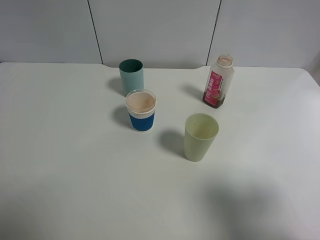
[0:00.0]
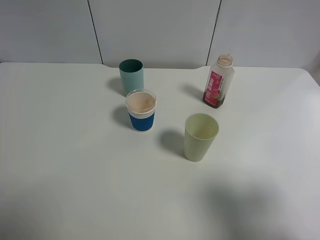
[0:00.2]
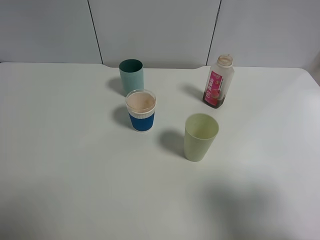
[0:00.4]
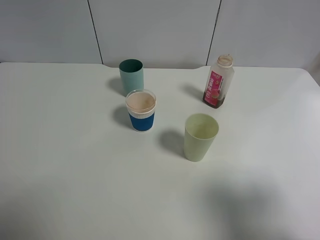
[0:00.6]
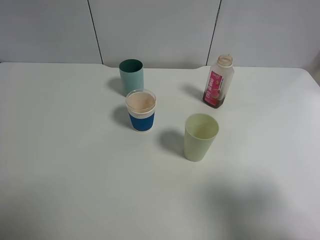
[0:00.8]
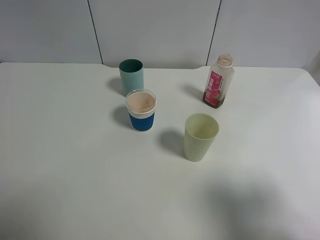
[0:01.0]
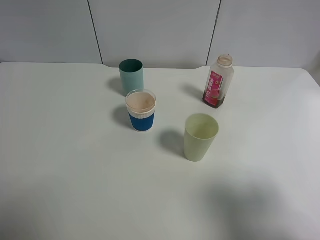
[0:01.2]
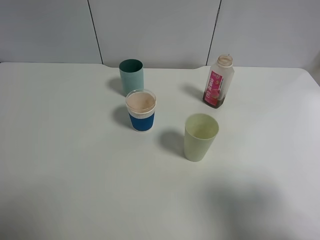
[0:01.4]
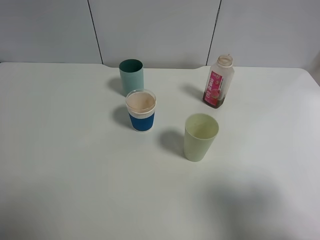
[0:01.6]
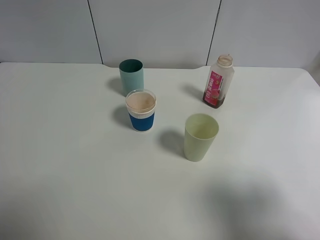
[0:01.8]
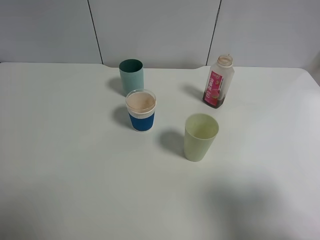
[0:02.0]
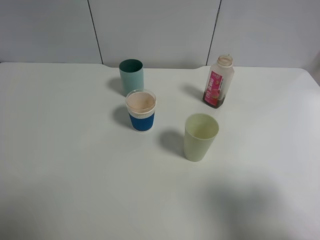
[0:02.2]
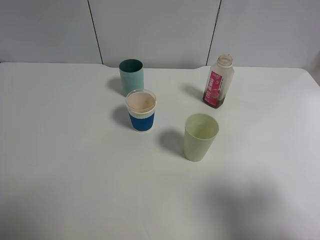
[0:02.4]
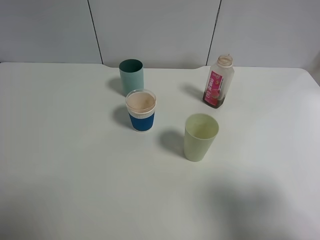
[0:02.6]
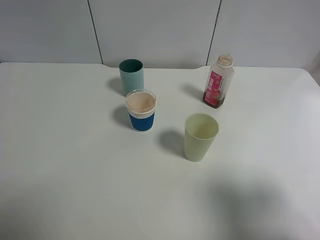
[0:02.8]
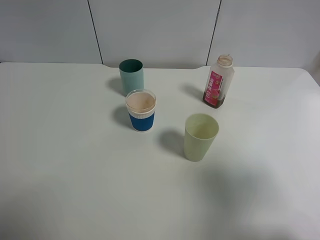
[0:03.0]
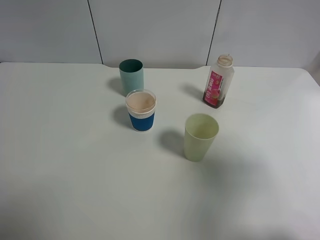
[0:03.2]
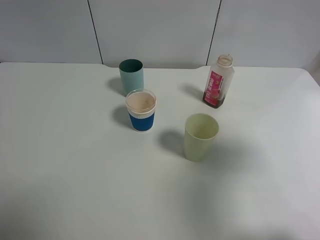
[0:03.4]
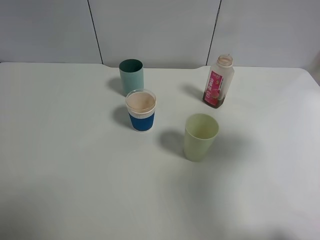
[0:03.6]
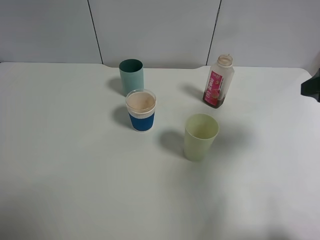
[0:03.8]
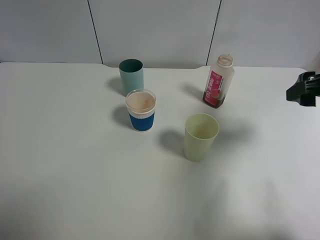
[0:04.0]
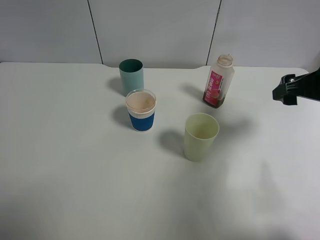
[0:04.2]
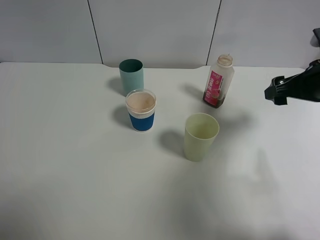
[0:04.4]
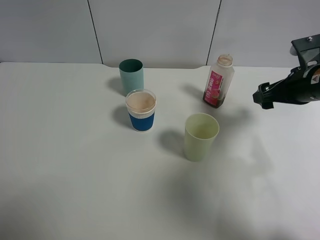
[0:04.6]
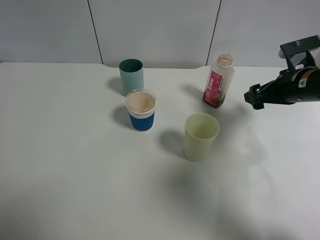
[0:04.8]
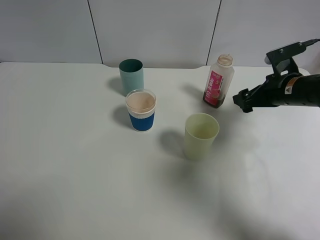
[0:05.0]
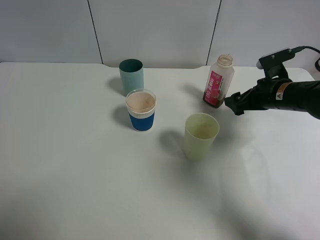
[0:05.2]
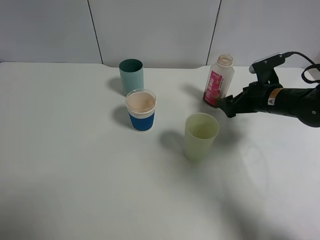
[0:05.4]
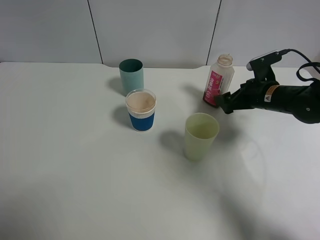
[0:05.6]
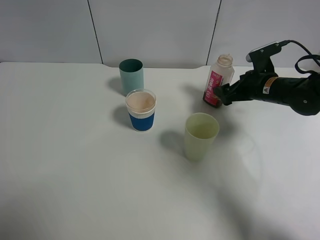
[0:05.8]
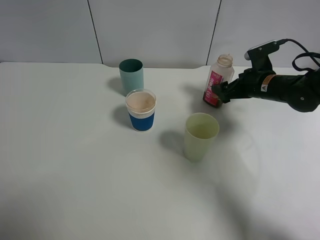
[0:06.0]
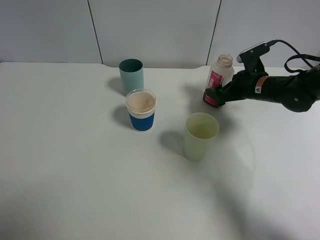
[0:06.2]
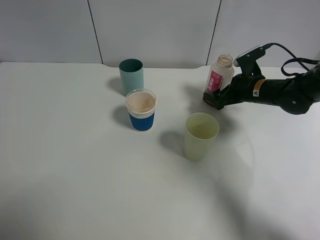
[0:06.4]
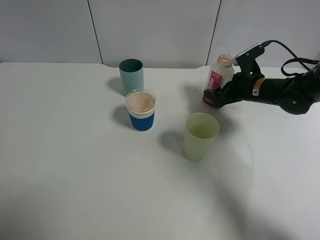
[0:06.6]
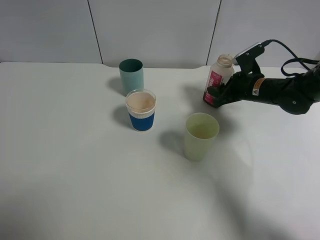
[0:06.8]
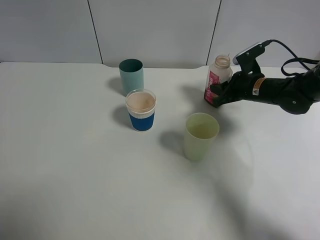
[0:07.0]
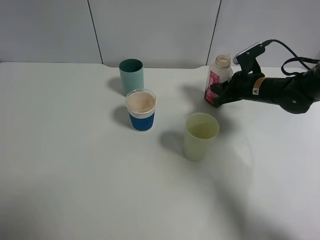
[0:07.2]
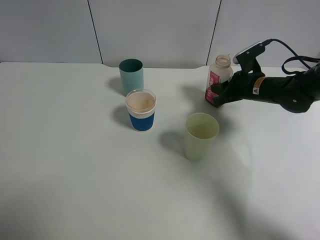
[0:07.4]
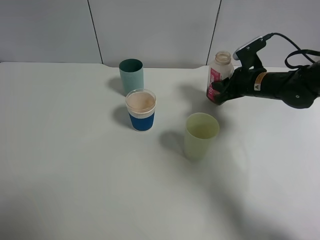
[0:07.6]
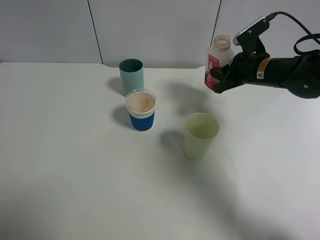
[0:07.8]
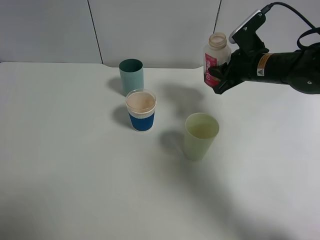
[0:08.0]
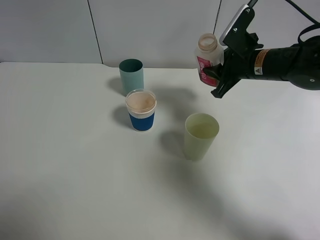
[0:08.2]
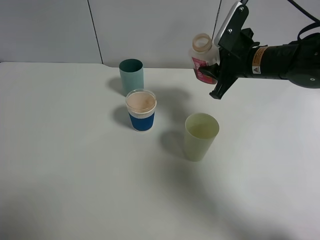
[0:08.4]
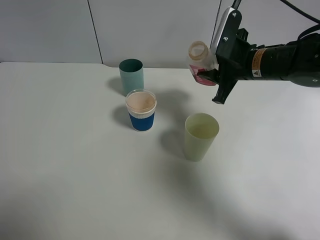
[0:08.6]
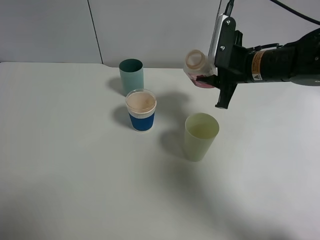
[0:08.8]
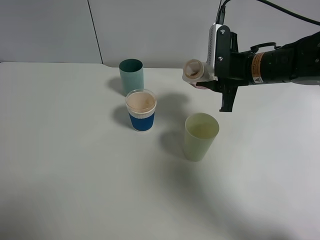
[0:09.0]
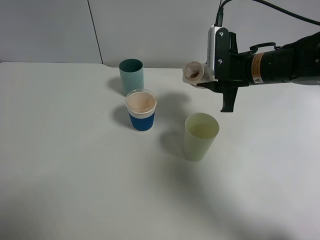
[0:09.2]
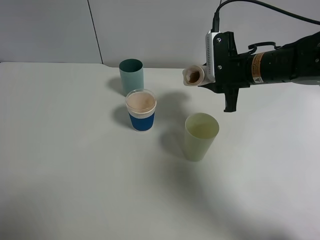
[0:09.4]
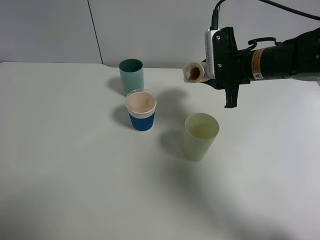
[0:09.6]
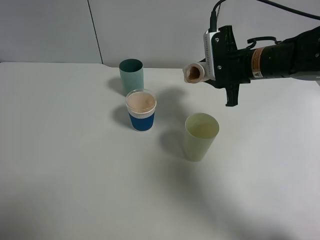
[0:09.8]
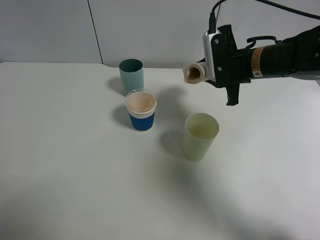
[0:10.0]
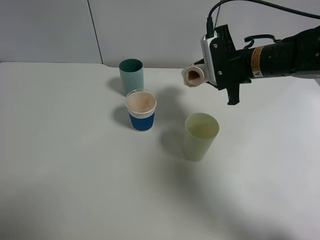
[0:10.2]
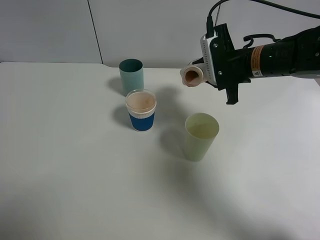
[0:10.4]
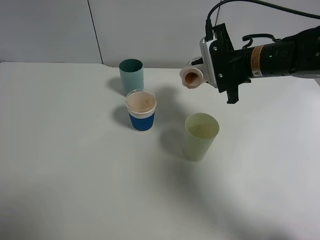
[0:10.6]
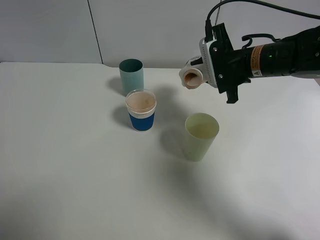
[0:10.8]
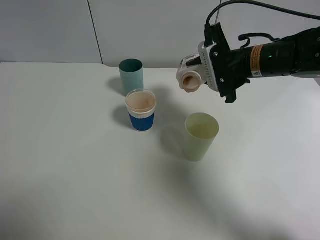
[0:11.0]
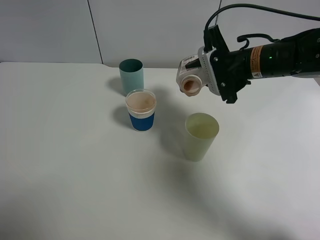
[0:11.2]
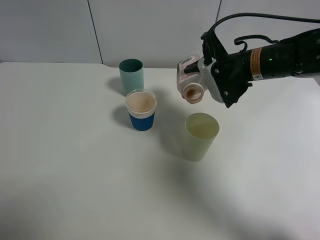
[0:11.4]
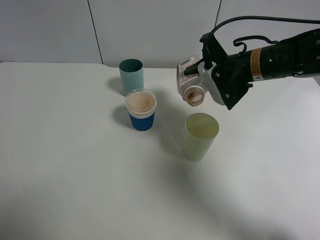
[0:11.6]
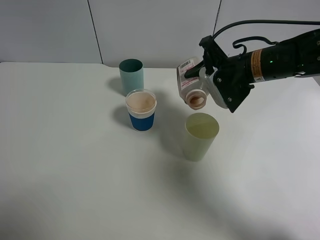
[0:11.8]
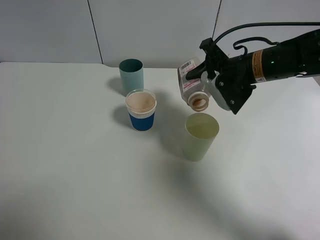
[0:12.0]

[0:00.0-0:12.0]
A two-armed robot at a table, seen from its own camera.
Task of the whole recording: use a gripper to hold the bottle of the drink and pour it into a random cup.
Step, 0:00.0 to 0:07.4: Grasp the cranberry juice bottle with the right gripper.
0:00.0 to 0:01.6: Neither gripper changes place.
0:01.6 to 0:03.0: The grippers move only a little.
0:03.0 to 0:04.4: The right gripper shifts about 25 cm forward and downward.
0:04.4 to 0:06.0: The right gripper is displaced forward and downward by about 15 cm.
0:06.0 to 0:07.6: The right gripper closes.
0:07.6 to 0:09.0: The right gripper goes some 10 cm upward and to the left.

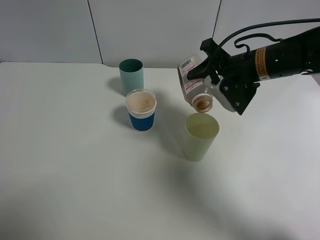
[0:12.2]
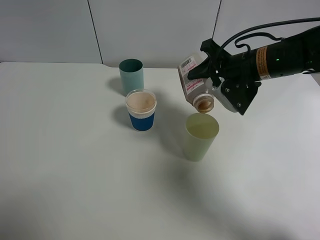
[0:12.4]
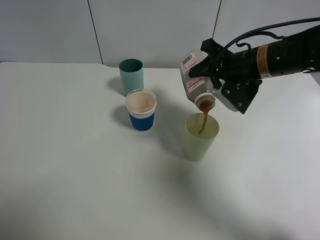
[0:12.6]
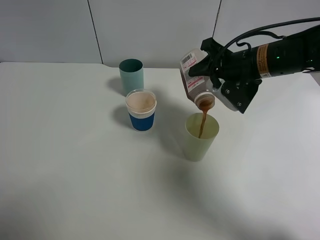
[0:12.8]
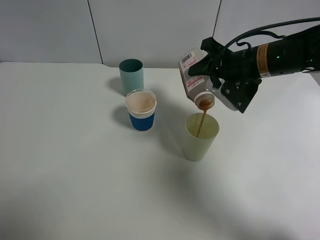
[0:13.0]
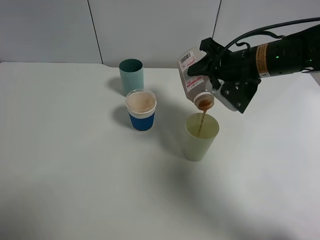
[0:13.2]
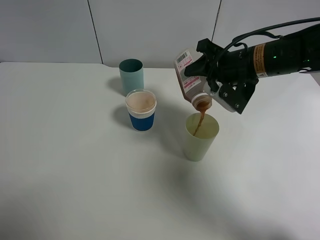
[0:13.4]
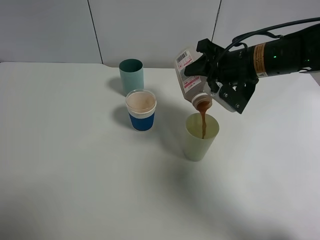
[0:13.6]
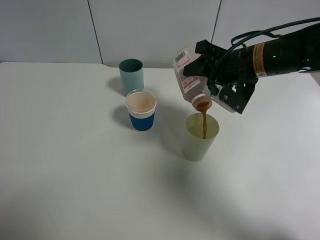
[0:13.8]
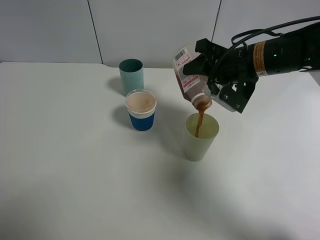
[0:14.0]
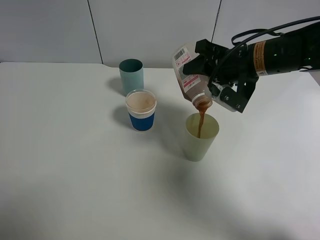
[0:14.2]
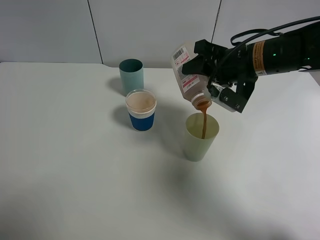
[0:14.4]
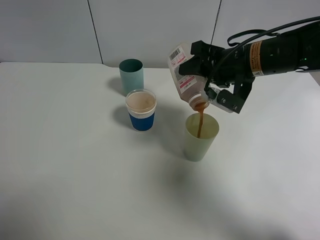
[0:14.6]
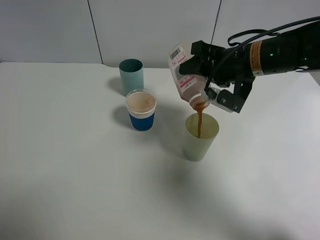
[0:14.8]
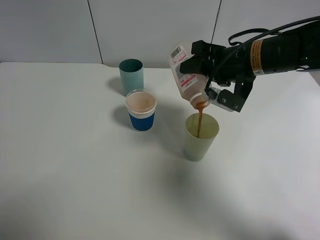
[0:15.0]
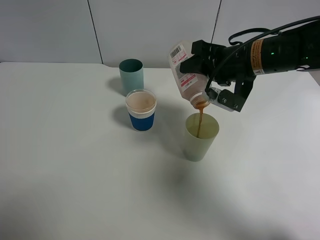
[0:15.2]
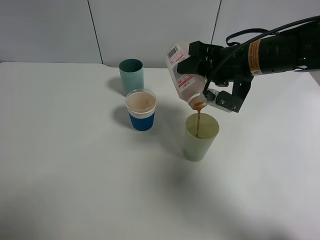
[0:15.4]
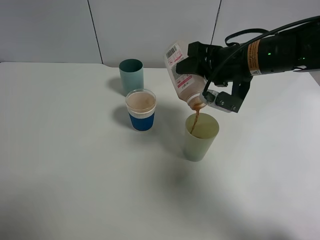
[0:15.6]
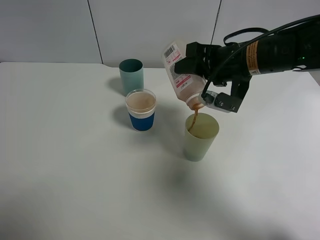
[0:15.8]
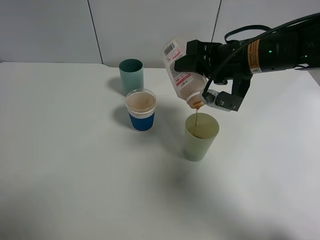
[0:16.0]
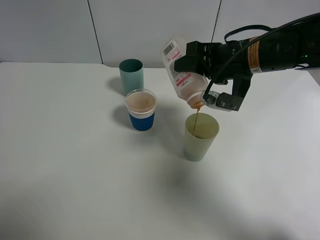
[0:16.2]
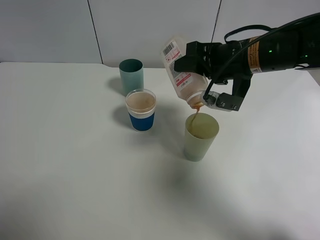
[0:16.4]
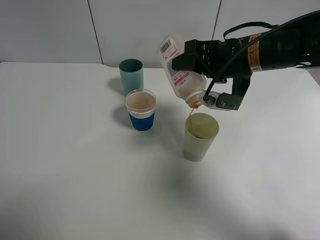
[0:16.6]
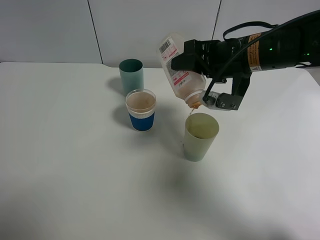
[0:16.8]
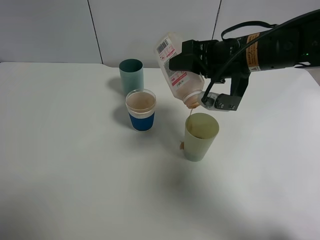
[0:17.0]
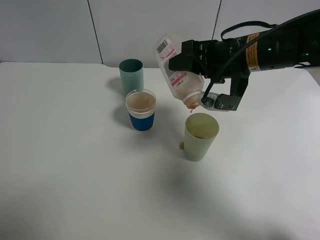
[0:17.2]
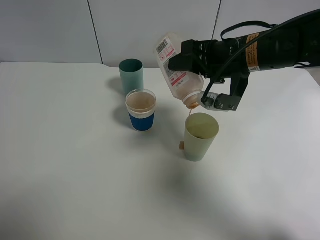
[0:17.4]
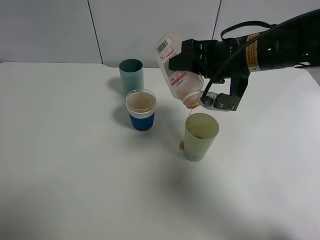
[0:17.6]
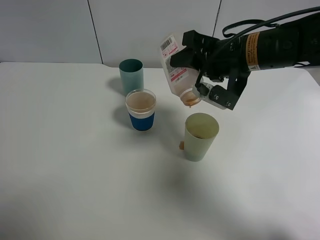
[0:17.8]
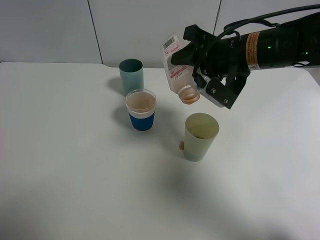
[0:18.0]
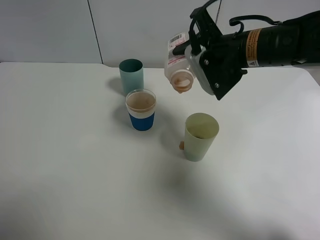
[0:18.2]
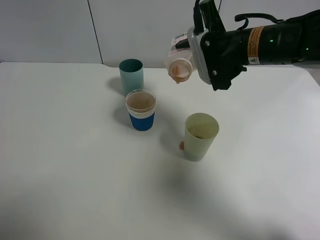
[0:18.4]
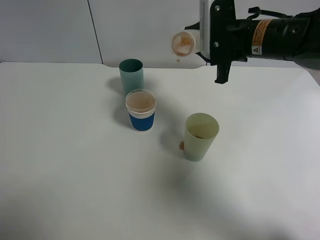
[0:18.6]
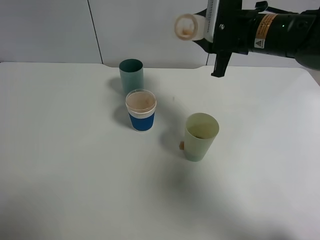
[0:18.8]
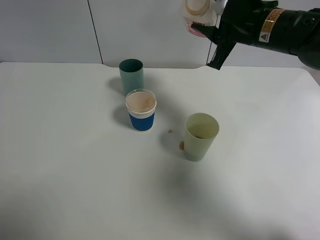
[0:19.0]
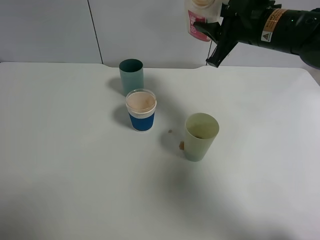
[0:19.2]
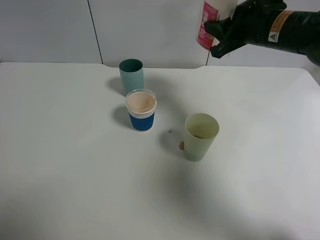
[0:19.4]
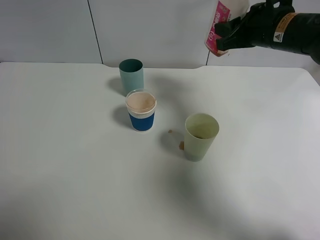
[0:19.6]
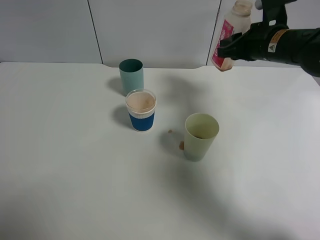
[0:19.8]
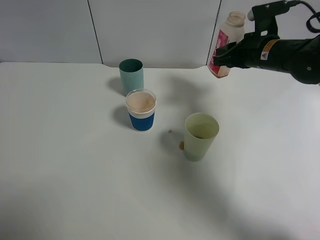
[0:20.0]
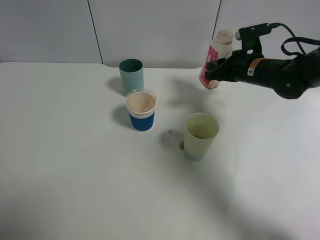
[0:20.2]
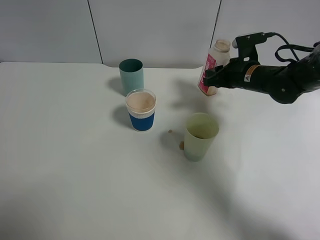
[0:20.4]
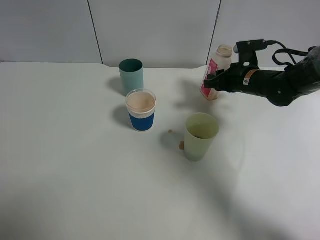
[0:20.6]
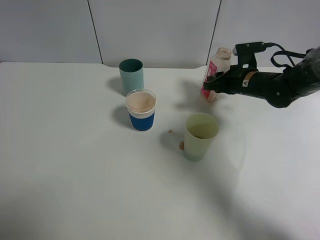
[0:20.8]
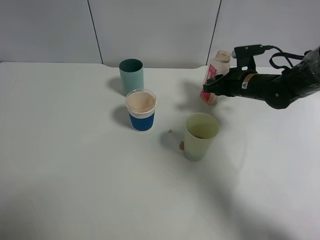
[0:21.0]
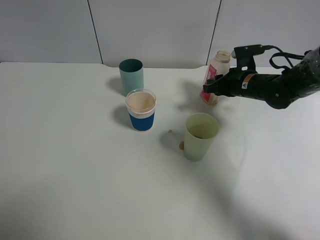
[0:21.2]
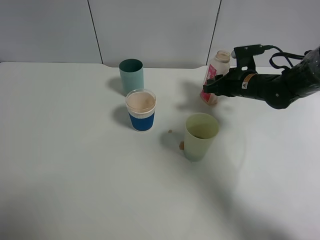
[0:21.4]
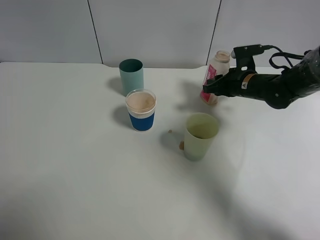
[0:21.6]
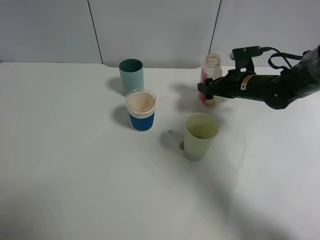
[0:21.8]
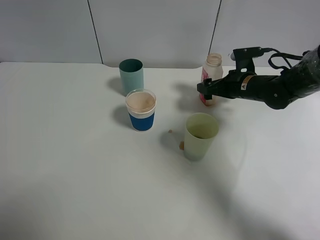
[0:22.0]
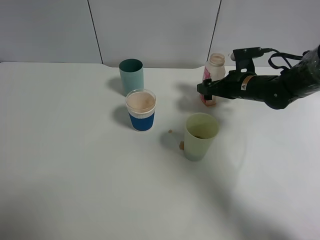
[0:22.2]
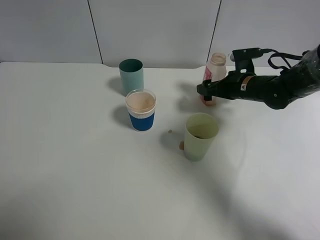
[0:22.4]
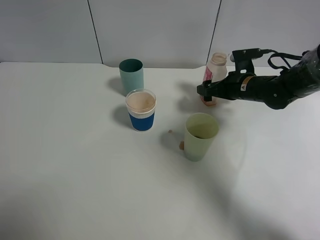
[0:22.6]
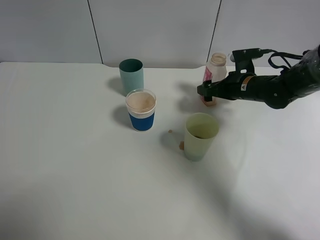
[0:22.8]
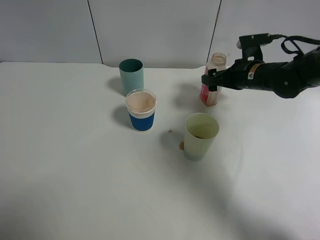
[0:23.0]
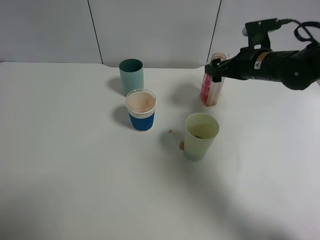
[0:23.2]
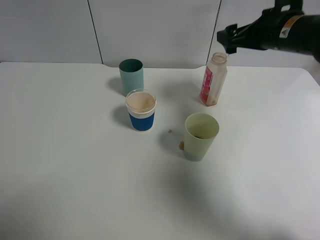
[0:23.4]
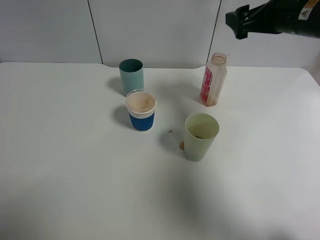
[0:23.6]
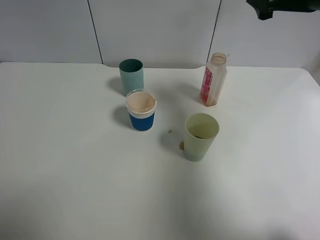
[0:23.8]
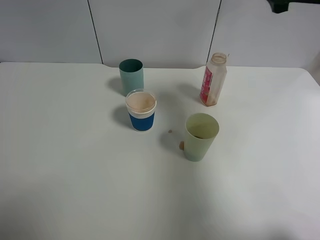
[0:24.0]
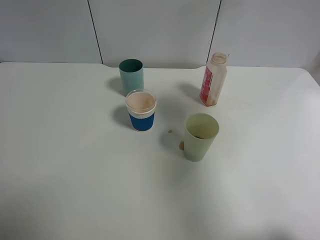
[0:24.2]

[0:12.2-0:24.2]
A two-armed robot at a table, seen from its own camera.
Task of the whole recording: use a gripper to hold the bottle of the drink and pour it into a random cup.
Step, 0:12.2 to 0:18.2: Pour the cranberry juice into the White Plastic Cup with the right gripper.
Step, 0:18.4 to 0:22.8: Place the cranberry juice bottle on the table with the right gripper.
0:12.2 to 0:13.8: The grippers make only small movements.
0:13.8 to 0:16.6: The grippers make only small movements.
0:18.2 to 0:19.8: The right gripper moves to the right and forward, some 10 cm.
0:19.8 to 0:21.2: The right gripper shifts roughly 10 cm downward.
0:21.2 to 0:22.6: The right gripper opens up.
0:22.6 to 0:24.2: The right gripper moves upward and backward, approximately 35 cm.
